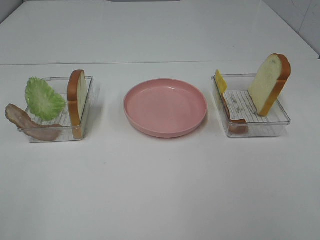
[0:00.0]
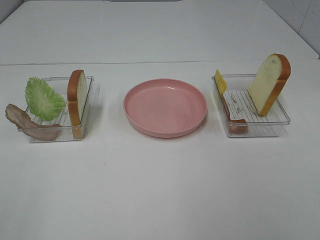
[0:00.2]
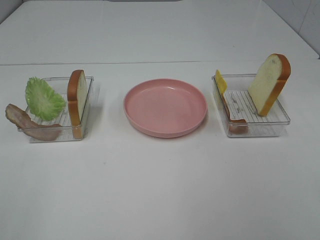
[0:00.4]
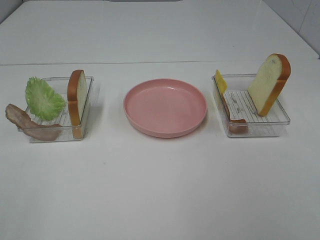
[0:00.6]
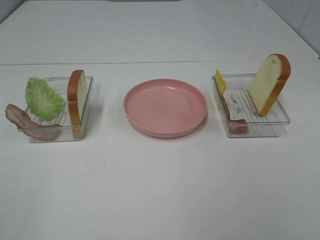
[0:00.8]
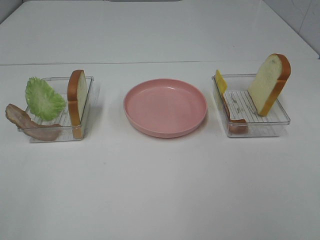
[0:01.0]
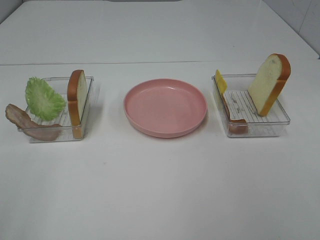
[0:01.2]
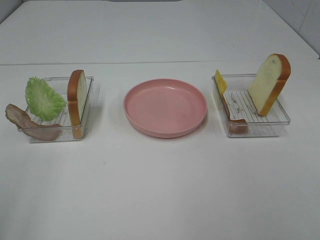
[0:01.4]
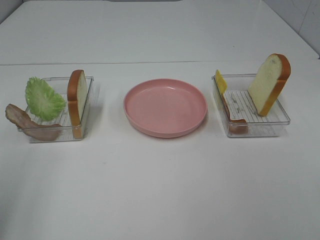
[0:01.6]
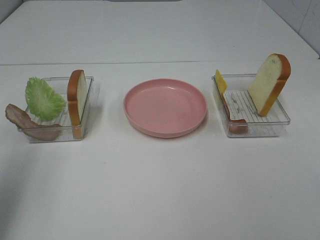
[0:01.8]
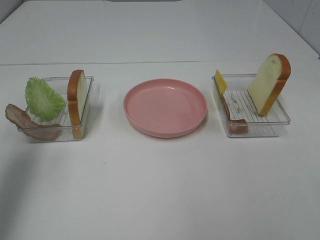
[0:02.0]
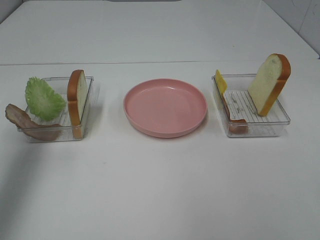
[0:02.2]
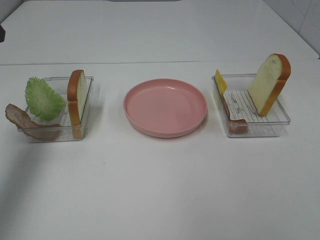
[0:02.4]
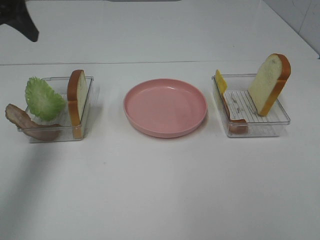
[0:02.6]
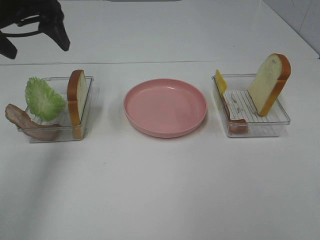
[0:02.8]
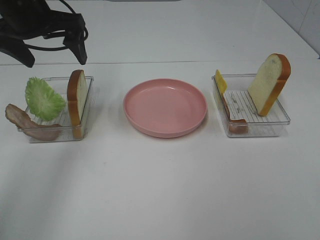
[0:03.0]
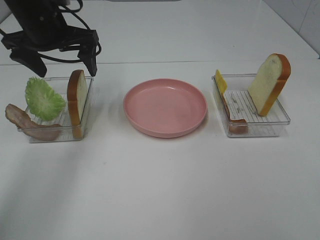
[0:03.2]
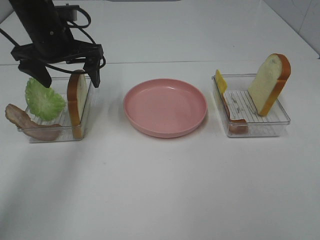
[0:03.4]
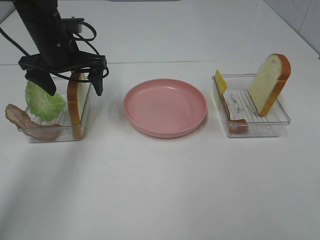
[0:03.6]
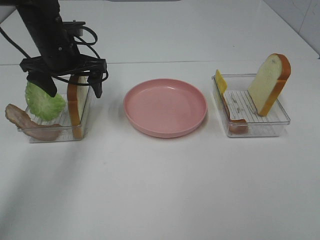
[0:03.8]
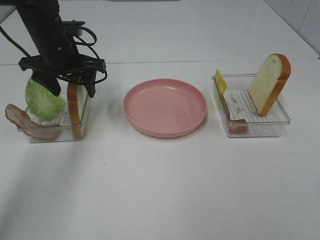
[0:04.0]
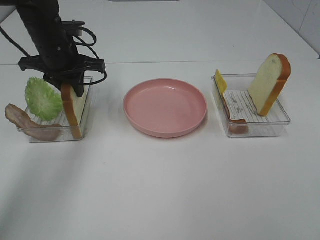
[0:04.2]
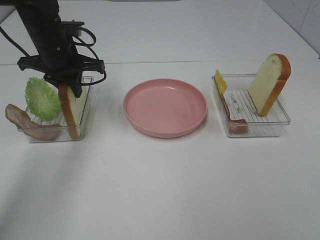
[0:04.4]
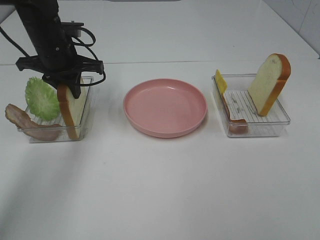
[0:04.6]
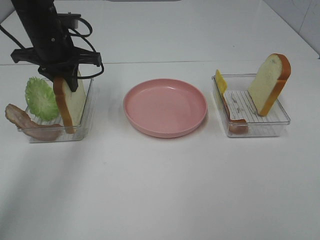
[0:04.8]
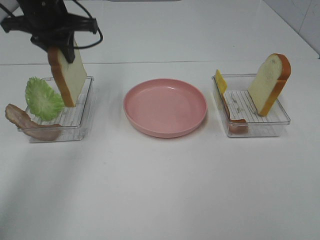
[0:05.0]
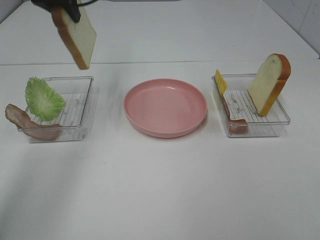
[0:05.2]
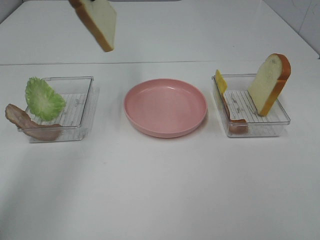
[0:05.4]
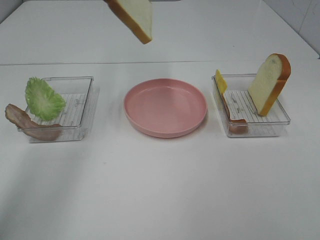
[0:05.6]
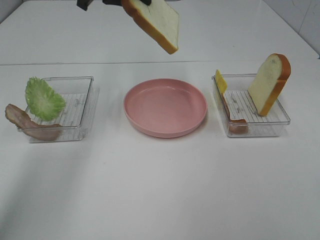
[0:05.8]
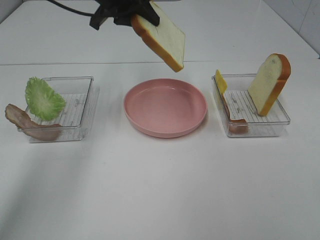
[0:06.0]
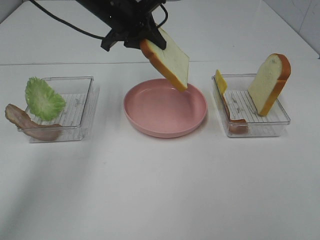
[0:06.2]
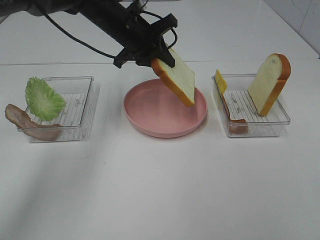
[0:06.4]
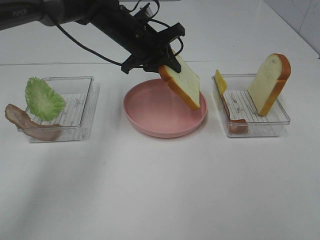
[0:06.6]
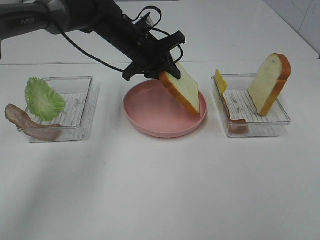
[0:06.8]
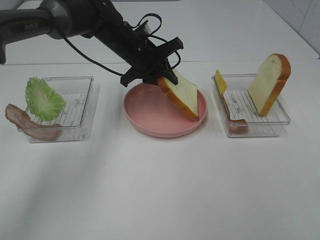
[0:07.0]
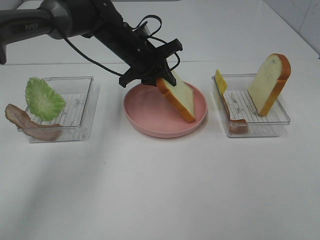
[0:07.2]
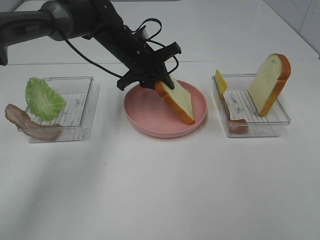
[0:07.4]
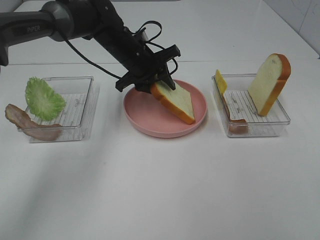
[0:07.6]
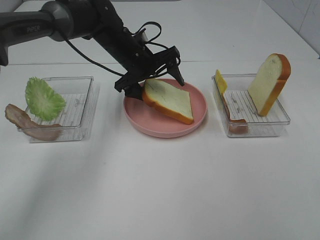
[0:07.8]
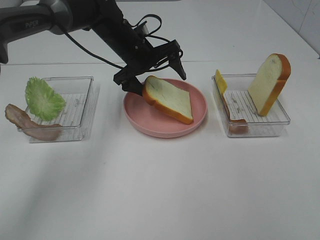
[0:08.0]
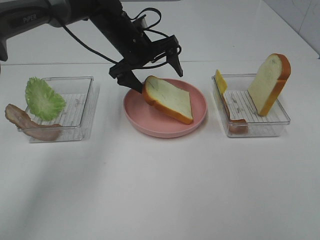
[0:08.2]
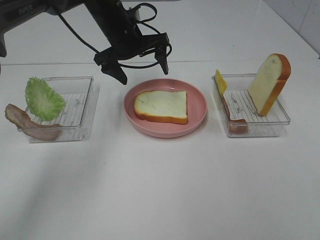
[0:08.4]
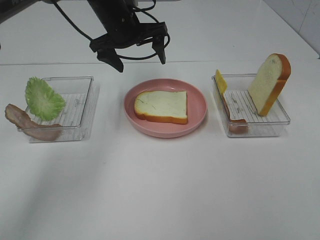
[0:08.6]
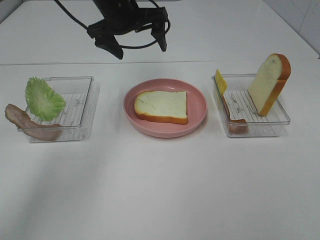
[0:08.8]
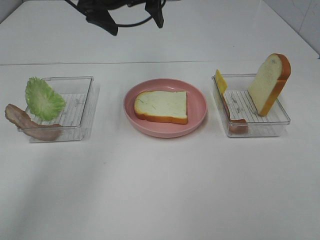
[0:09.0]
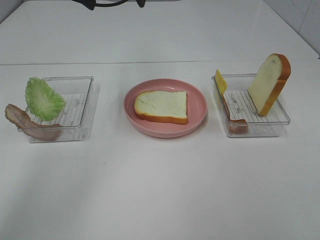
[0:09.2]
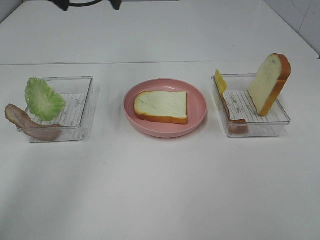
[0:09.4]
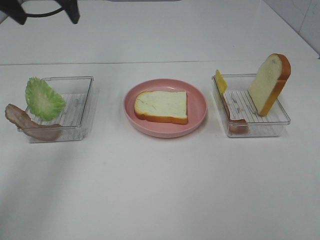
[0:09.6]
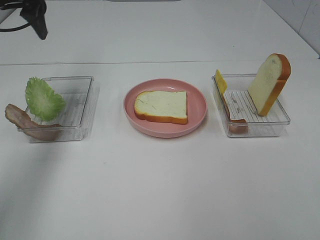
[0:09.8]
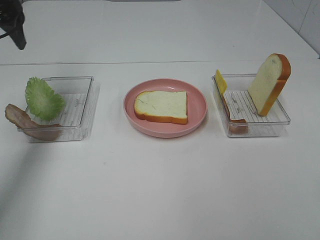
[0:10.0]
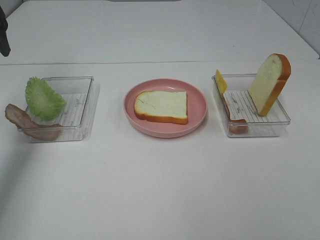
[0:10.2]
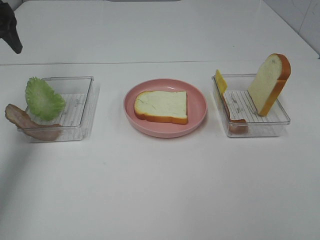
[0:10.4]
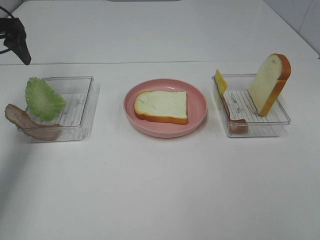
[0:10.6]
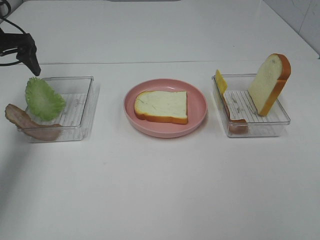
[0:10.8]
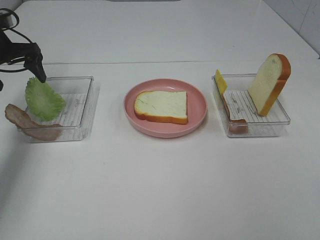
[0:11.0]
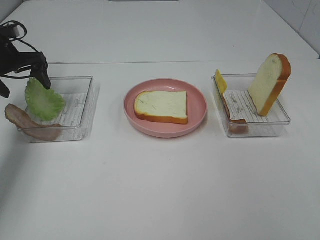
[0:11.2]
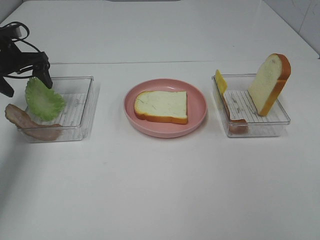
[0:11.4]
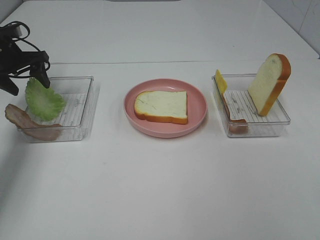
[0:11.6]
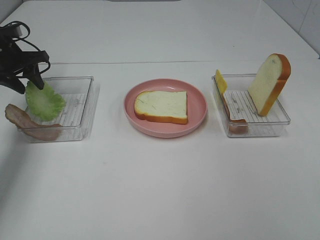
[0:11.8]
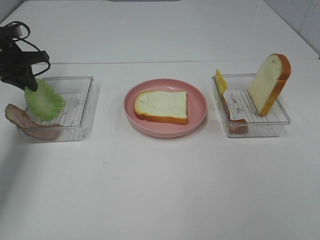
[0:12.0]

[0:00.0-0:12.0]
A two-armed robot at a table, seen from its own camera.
Task of the whole recording: Make sandwiches.
Step, 0:00.0 to 0:04.2: Left hand:grab the bread slice.
Step, 0:04.4 to 0:08.2: Left hand:place the bread slice on the plate.
0:01.6 to 0:03.0: The left gripper is displaced forward and to the right by approximately 30 cm.
0:03.0 to 0:04.4: The left gripper heads downward, covering roughly 10 cm, and closes up.
0:04.4 to 0:06.0: The left gripper moves upward and to the right, roughly 10 cm.
0:06.0 to 0:07.6: The left gripper shifts about 15 cm downward.
0:07.6 to 0:09.0: The left gripper shifts roughly 15 cm upward, and opens up.
0:09.0 to 0:10.4: The left gripper is displaced to the left by some 25 cm.
0:10.4 to 0:12.0: The left gripper goes about 15 cm downward and forward, and closes its fingers.

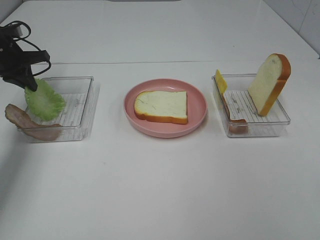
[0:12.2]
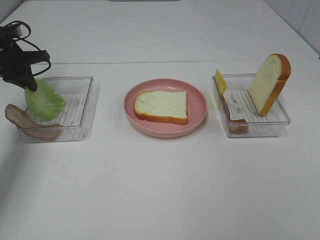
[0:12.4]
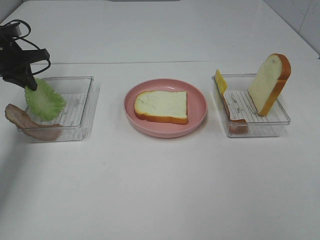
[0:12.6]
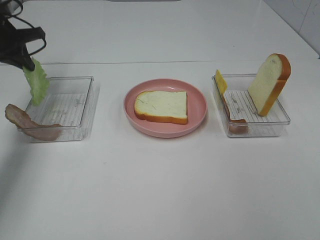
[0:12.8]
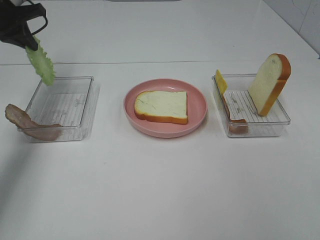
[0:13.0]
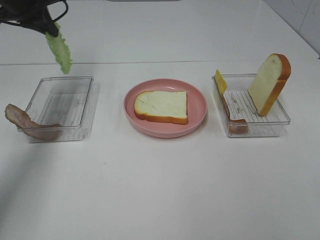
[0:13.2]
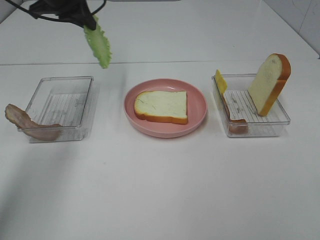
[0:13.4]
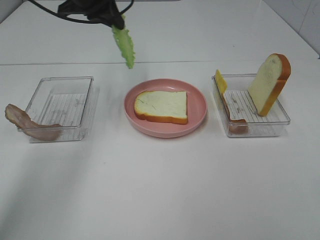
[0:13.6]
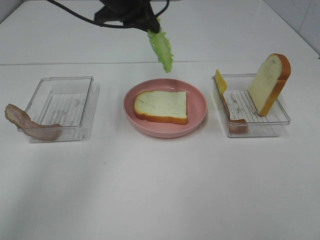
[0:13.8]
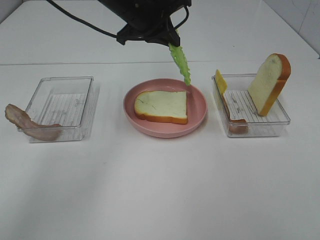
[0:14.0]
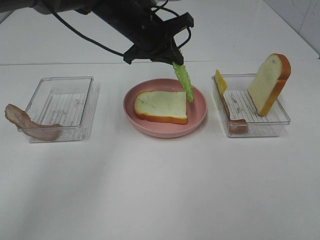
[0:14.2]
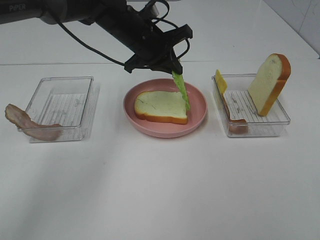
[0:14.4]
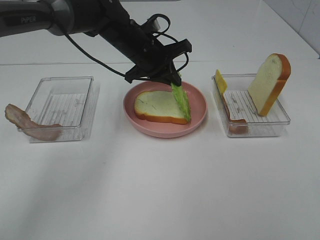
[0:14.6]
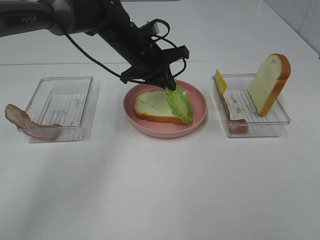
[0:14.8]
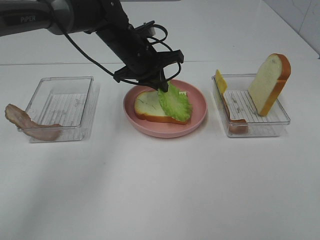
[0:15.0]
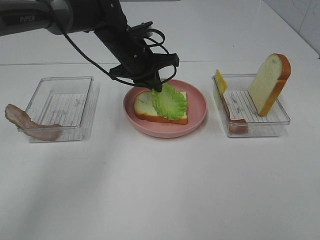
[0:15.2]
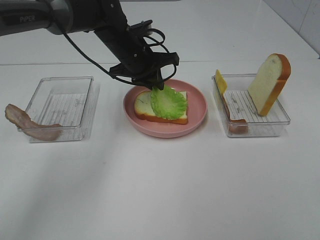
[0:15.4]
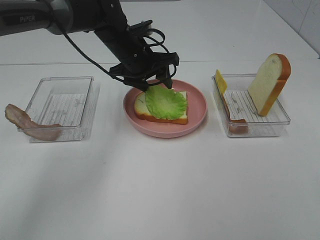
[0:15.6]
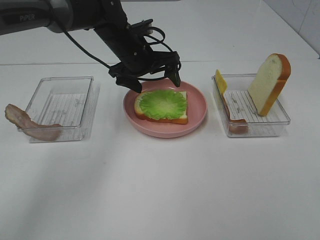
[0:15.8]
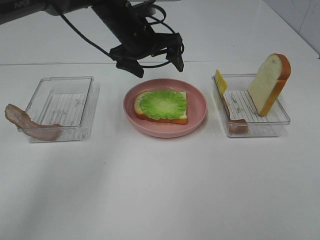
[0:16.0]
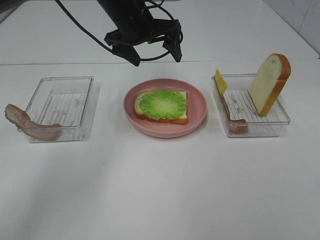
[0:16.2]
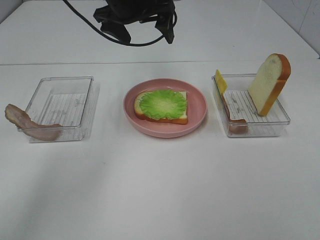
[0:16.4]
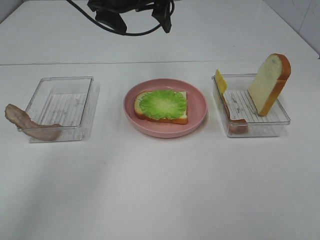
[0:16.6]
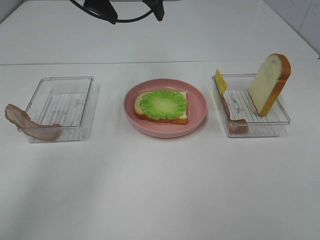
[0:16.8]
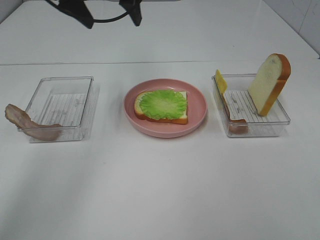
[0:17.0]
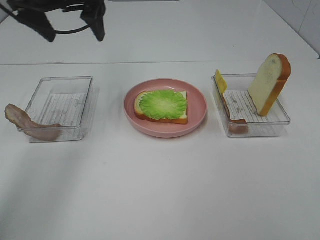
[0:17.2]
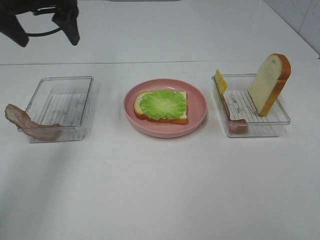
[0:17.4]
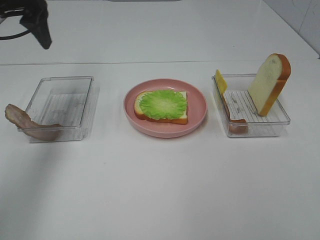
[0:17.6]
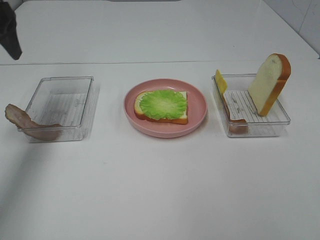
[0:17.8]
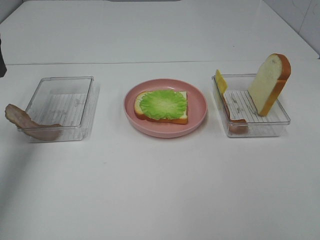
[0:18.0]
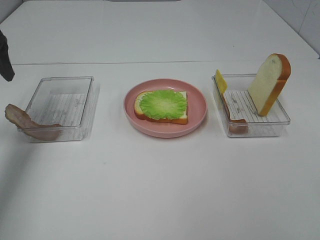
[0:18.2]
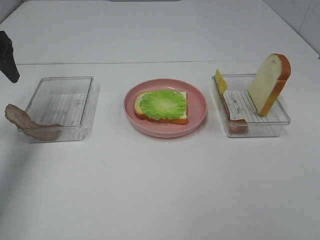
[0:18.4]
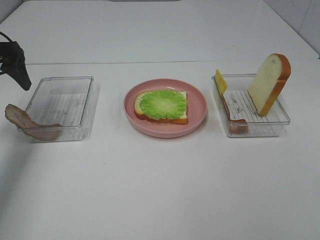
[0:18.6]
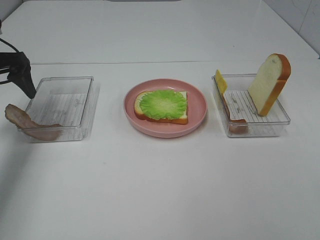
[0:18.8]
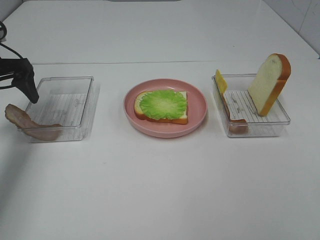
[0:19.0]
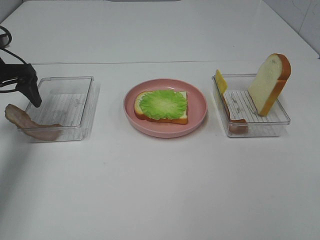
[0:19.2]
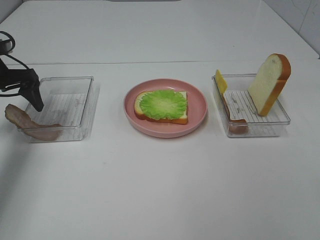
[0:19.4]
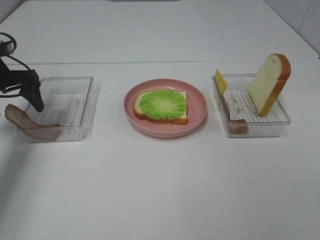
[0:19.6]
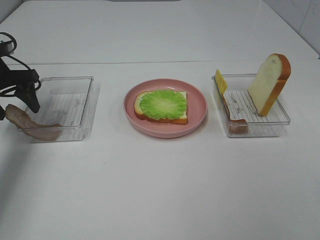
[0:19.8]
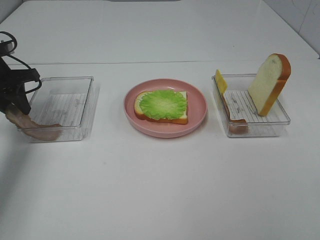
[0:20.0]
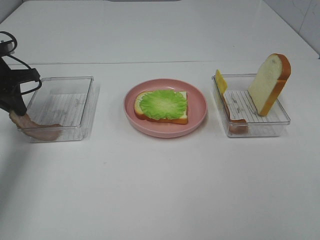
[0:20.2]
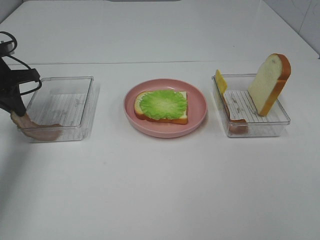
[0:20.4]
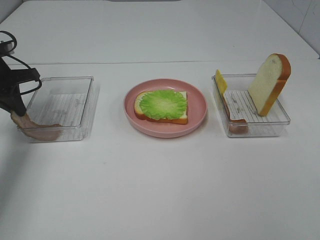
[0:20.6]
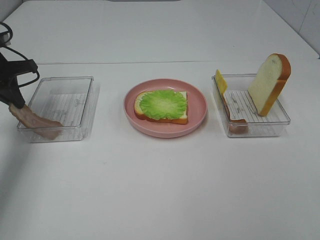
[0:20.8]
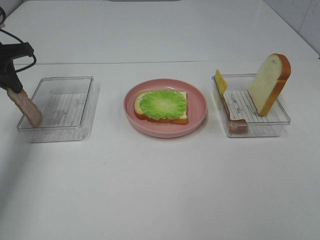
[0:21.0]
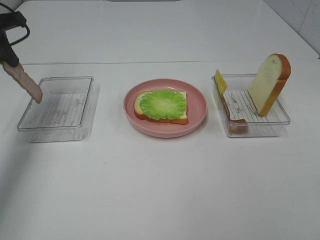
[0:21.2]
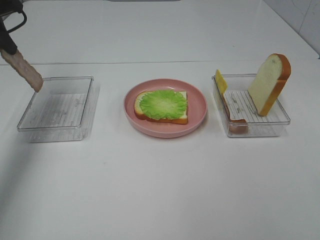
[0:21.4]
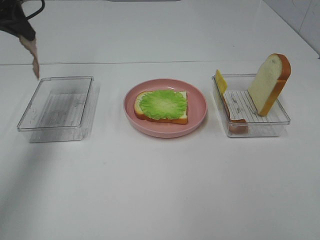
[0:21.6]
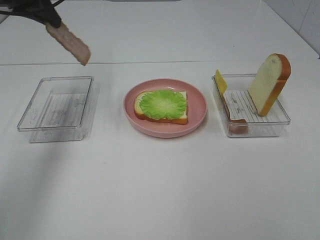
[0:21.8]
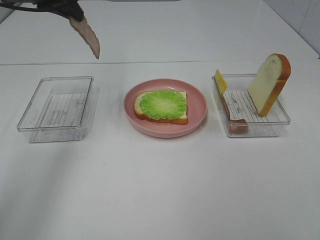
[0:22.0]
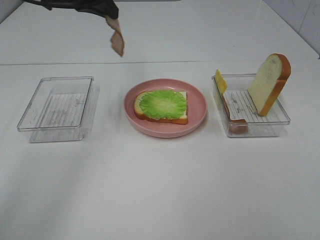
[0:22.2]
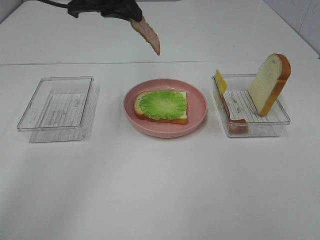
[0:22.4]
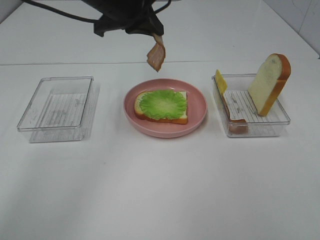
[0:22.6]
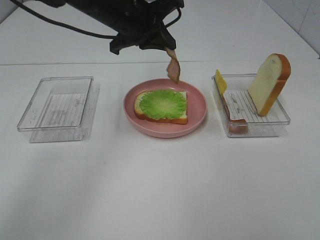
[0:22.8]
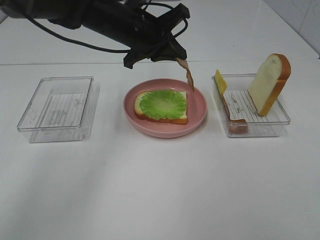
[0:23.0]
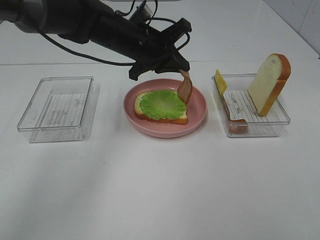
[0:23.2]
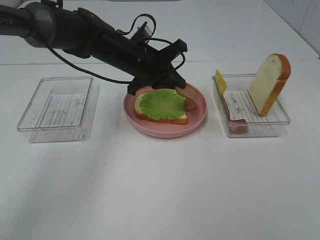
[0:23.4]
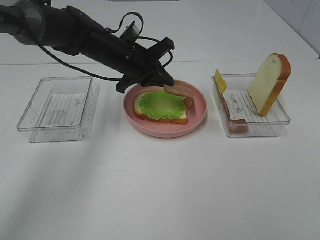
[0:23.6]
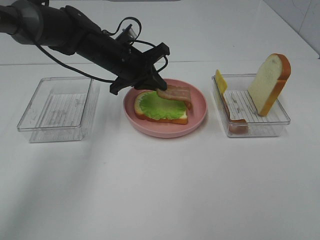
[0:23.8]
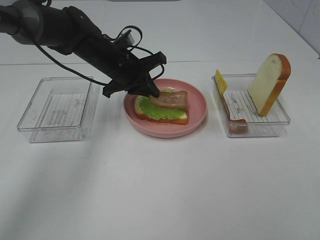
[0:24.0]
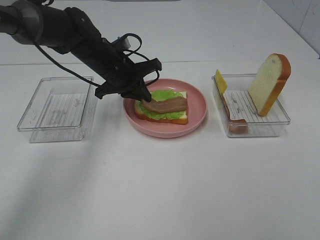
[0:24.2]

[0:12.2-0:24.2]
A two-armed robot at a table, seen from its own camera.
Task of the whole recording: Make sandwiches.
Step, 0:12.4 to 0:15.8: Left hand:place the lettuce slice on the bread slice.
Step, 0:16.0 to 0:20.2: Left hand:grab the bacon.
0:12.2 to 0:13.8: The left gripper moves to the right and upward, roughly 30 cm.
0:13.8 to 0:15.2: The left gripper travels downward by roughly 10 cm.
0:15.2 to 0:16.6: The left gripper goes roughly 15 cm upward, and opens up.
0:16.6 to 0:18.2: The left gripper is displaced to the left by approximately 25 cm.
0:18.2 to 0:19.8: The left gripper is displaced downward by roughly 10 cm.
0:19.8 to 0:21.2: The left gripper is displaced upward by roughly 10 cm, and closes up.
0:21.2 to 0:22.6: The left gripper moves to the right, approximately 25 cm.
0:22.6 to 0:24.2: The left gripper moves downward, about 15 cm.
